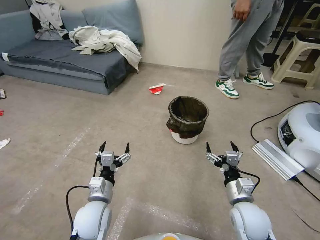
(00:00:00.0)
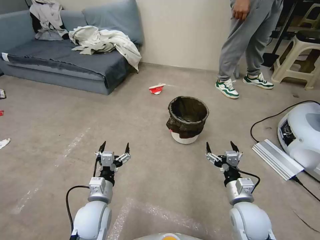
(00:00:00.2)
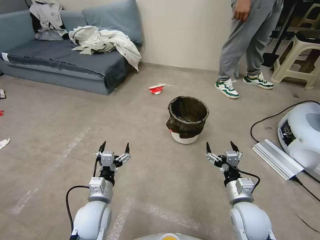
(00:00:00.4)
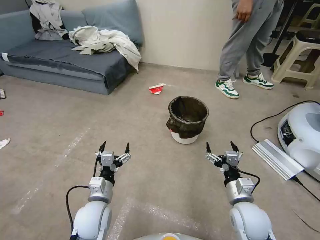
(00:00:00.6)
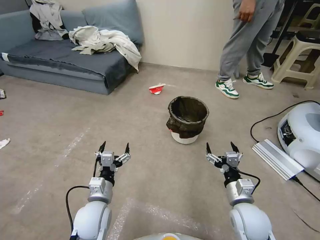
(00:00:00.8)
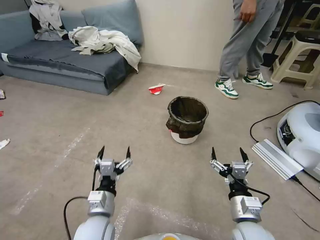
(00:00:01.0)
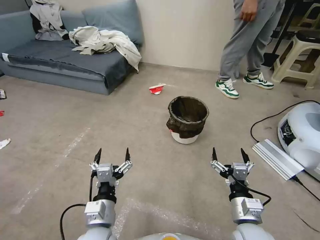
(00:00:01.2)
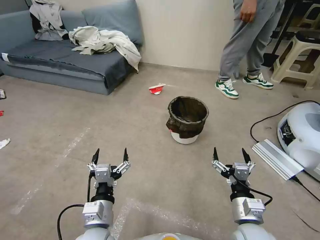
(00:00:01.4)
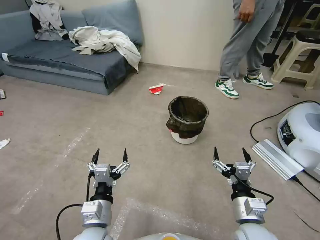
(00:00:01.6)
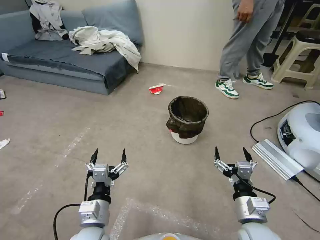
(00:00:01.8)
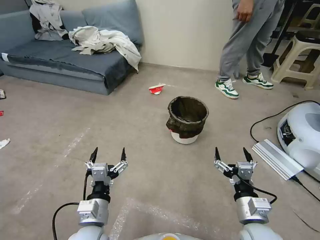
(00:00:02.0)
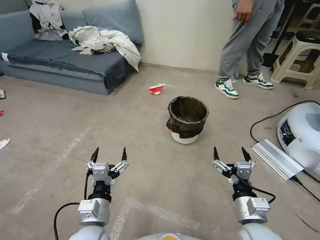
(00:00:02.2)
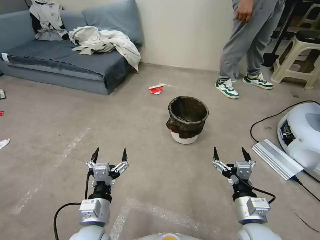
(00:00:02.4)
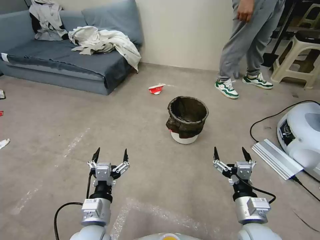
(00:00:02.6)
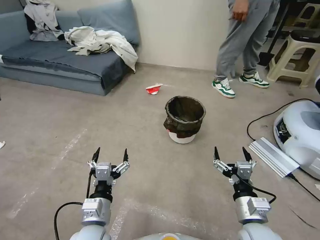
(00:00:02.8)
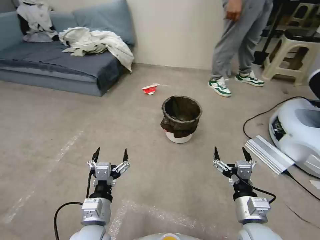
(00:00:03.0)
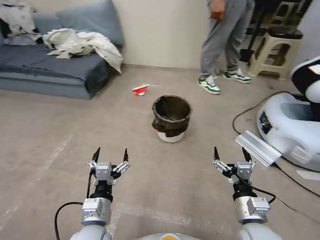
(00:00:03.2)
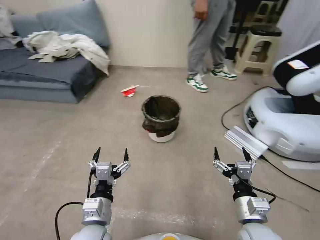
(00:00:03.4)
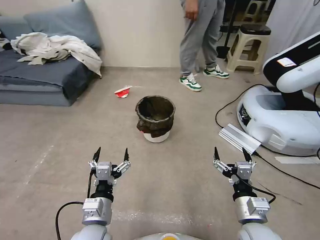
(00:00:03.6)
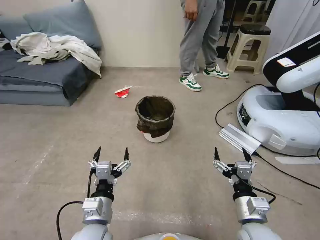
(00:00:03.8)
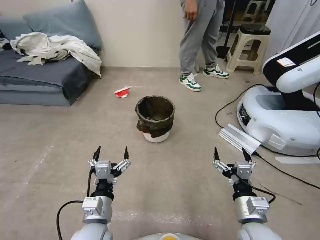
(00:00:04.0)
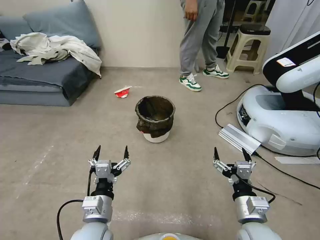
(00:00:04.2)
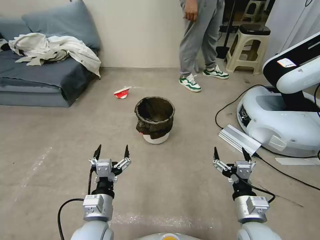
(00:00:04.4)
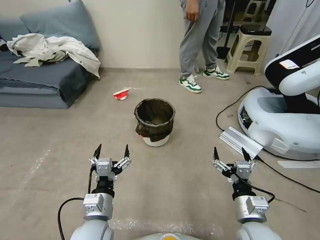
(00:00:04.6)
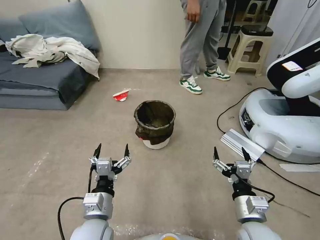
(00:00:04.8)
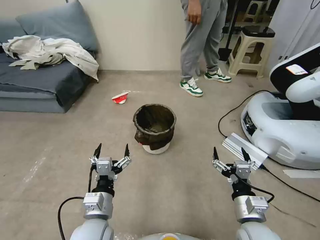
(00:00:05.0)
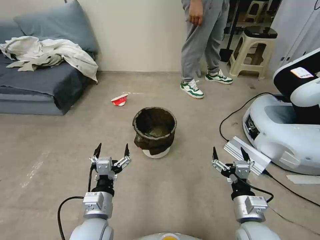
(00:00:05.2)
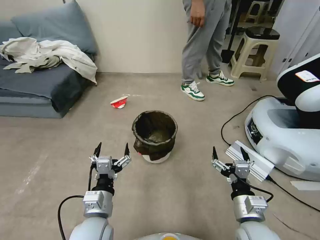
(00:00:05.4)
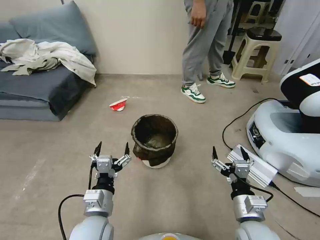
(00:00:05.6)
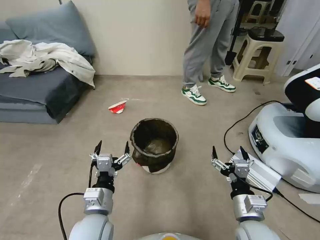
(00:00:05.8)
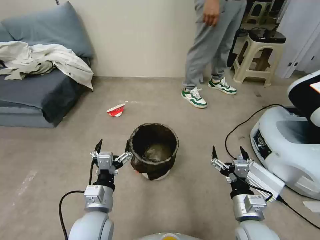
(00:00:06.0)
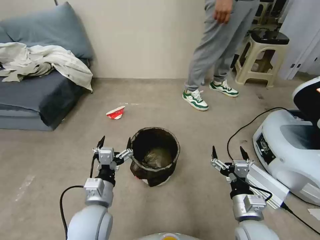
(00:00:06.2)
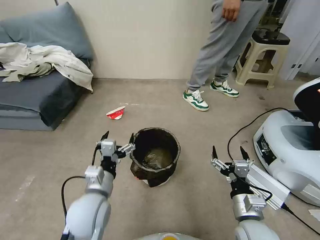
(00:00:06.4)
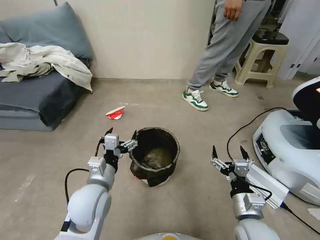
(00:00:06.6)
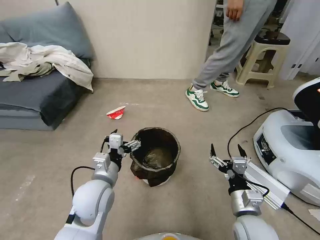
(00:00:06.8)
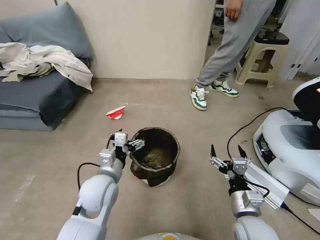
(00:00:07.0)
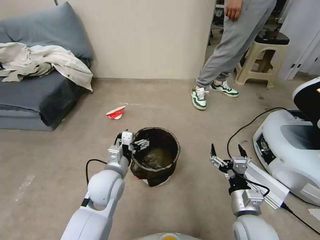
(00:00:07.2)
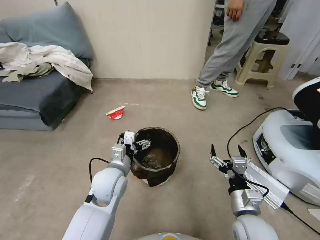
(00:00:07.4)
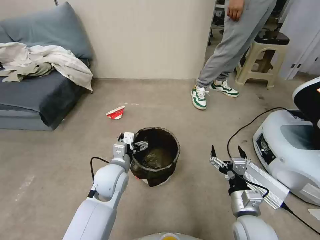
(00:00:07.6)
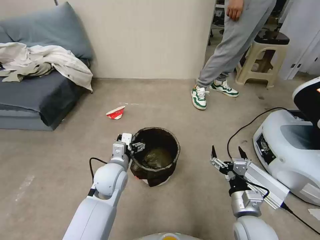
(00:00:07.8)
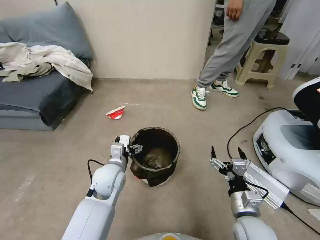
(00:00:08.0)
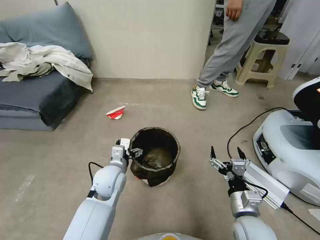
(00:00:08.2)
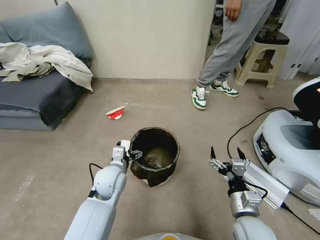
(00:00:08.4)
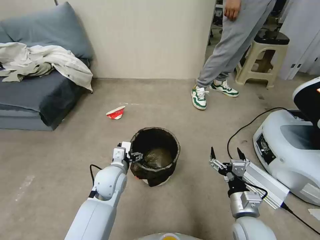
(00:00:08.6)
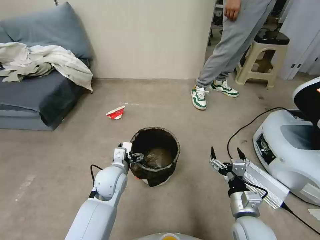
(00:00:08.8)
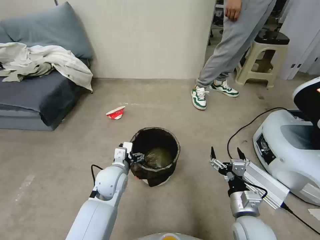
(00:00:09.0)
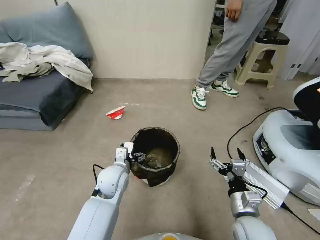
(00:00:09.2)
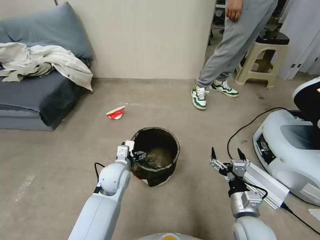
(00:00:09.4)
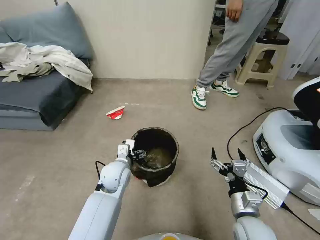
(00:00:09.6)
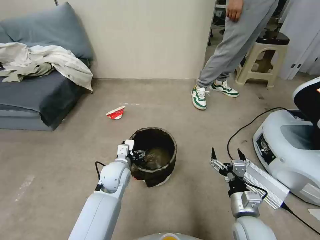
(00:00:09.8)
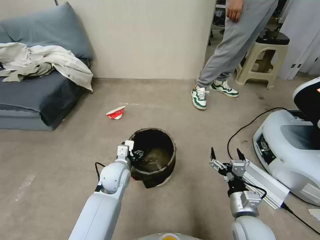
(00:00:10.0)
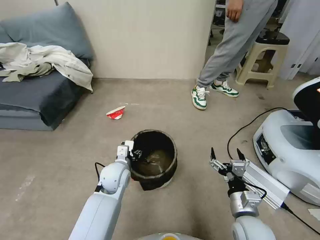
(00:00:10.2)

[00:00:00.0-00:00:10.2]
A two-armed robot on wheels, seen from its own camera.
Task of the whole recording: Pick up the trash can from the floor.
00:00:05.8 to 00:00:07.2: The left gripper goes about 10 cm forward.
00:00:07.2 to 00:00:08.8: The left gripper changes place by some 5 cm.
00:00:08.8 to 00:00:10.2: The left gripper closes its fingers.

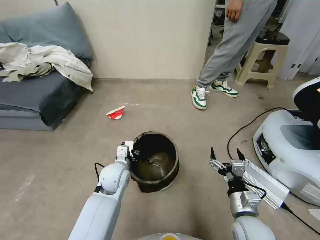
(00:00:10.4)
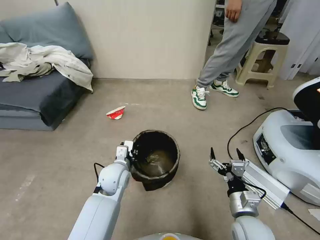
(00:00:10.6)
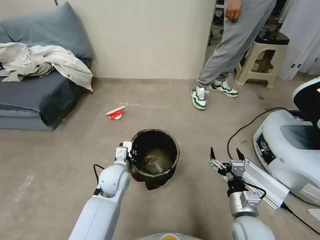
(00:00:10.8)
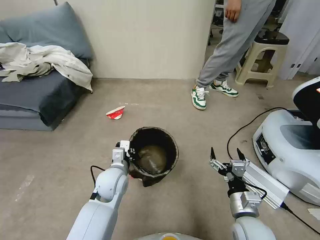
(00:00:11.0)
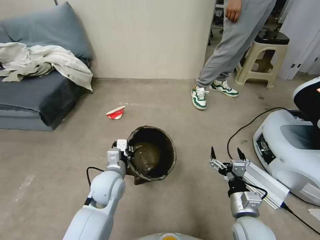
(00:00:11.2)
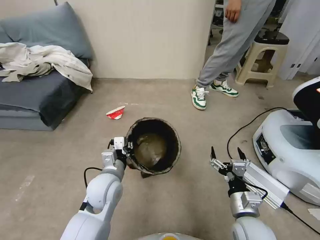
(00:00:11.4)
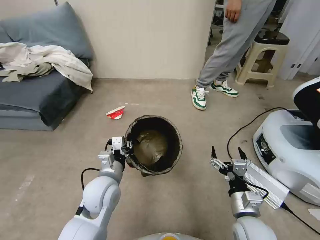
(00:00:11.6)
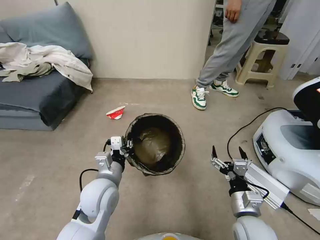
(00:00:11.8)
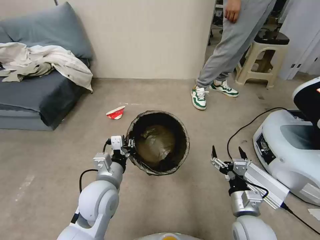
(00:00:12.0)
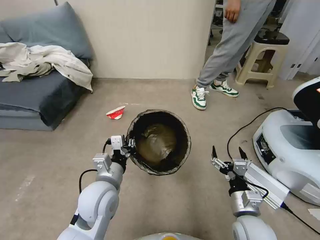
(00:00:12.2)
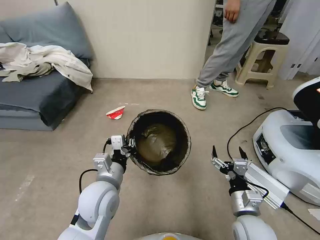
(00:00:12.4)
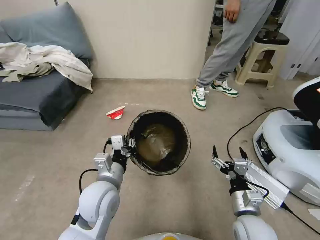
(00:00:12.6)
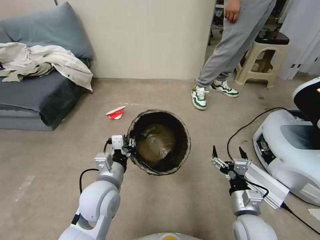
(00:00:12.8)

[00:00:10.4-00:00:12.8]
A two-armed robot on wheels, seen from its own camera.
Task of the whole recording: Pick up the trash can from the floor.
00:00:10.4 to 00:00:11.6: The left gripper moves backward and upward, approximately 10 cm.
00:00:11.6 to 00:00:12.8: The grippers make only small movements.

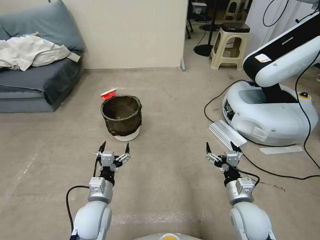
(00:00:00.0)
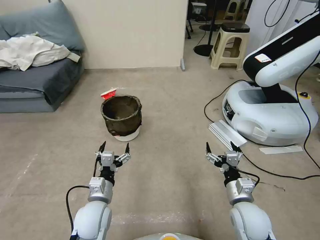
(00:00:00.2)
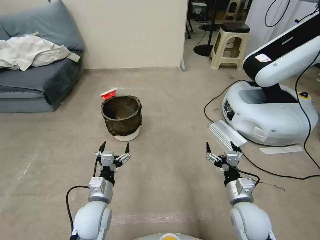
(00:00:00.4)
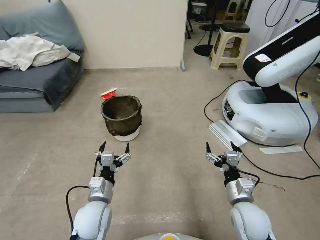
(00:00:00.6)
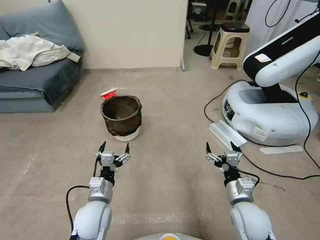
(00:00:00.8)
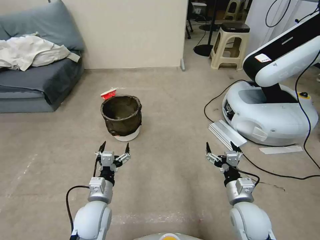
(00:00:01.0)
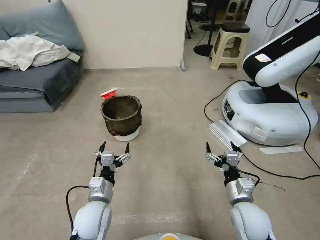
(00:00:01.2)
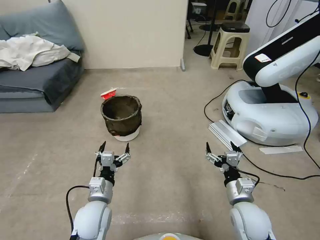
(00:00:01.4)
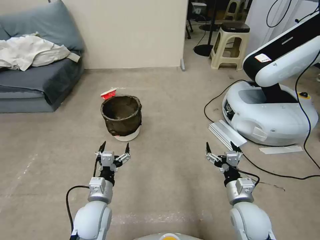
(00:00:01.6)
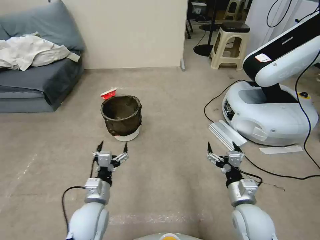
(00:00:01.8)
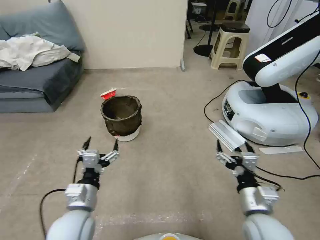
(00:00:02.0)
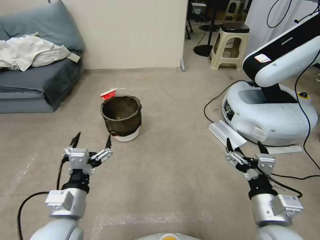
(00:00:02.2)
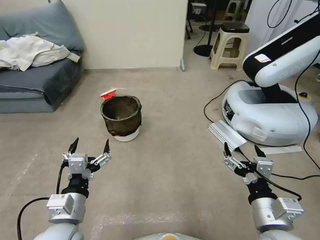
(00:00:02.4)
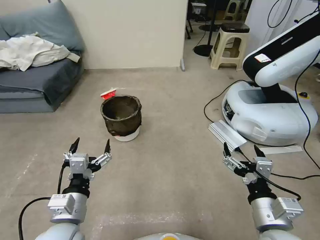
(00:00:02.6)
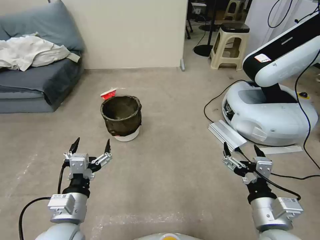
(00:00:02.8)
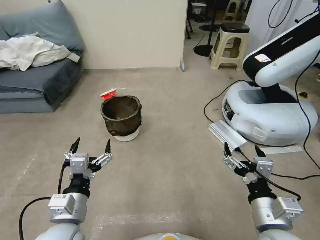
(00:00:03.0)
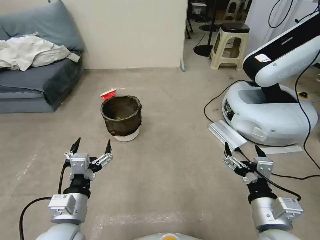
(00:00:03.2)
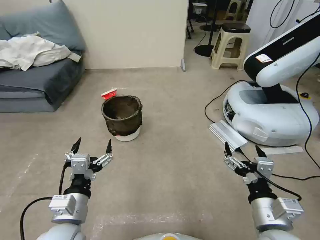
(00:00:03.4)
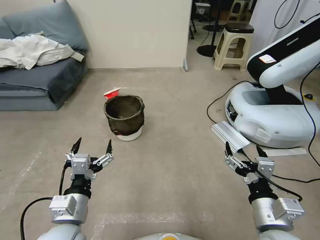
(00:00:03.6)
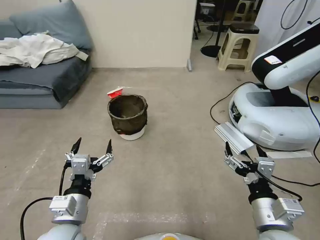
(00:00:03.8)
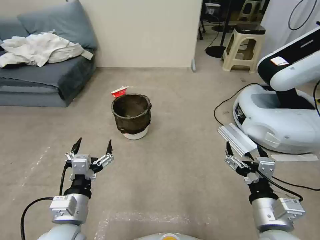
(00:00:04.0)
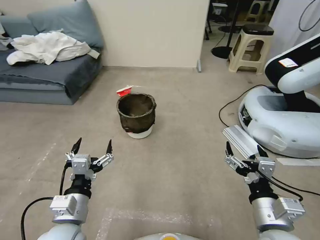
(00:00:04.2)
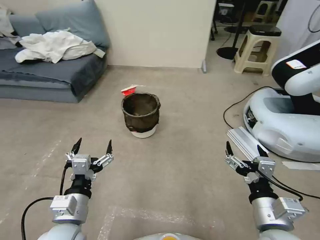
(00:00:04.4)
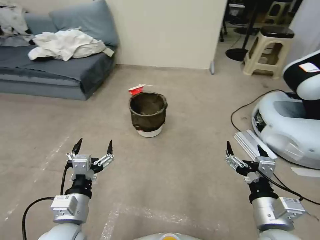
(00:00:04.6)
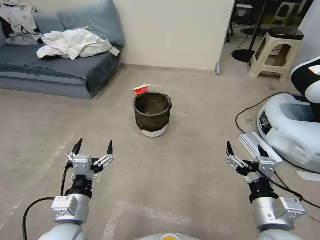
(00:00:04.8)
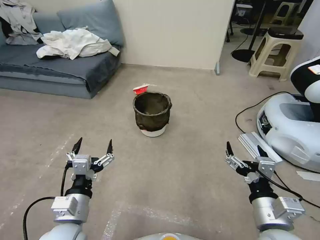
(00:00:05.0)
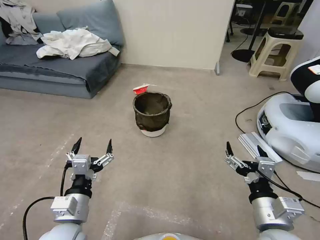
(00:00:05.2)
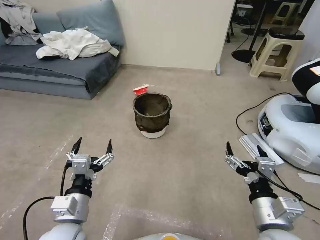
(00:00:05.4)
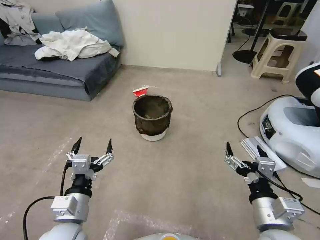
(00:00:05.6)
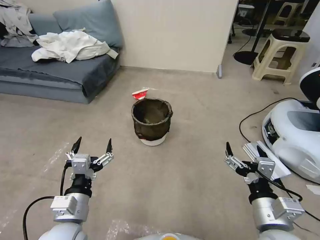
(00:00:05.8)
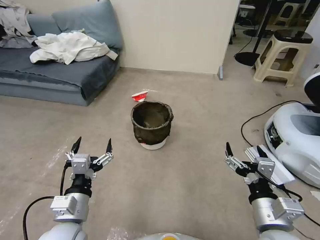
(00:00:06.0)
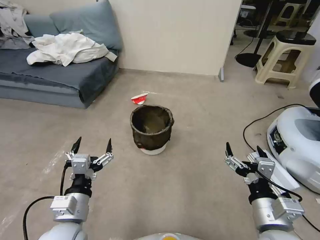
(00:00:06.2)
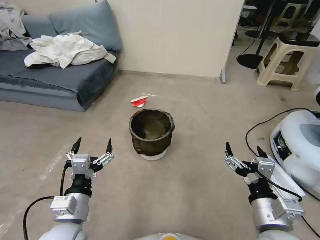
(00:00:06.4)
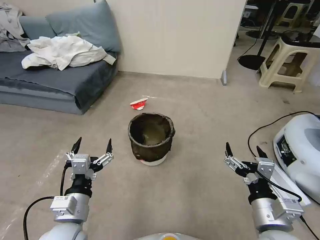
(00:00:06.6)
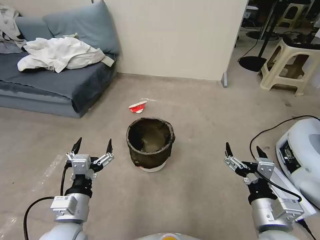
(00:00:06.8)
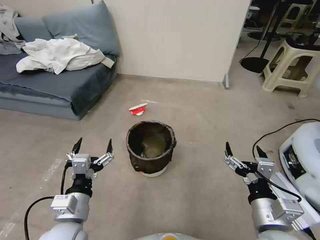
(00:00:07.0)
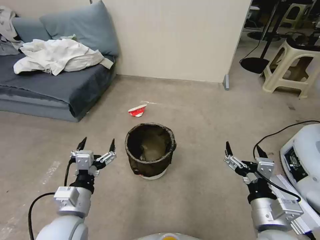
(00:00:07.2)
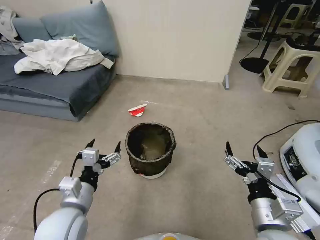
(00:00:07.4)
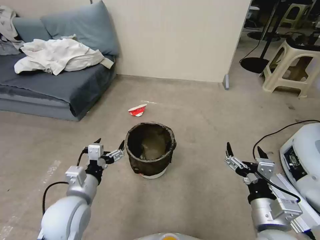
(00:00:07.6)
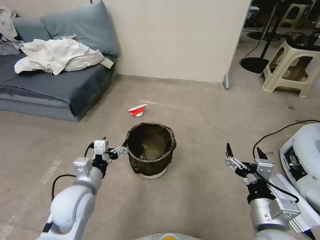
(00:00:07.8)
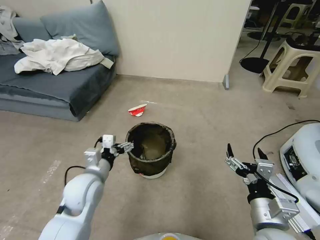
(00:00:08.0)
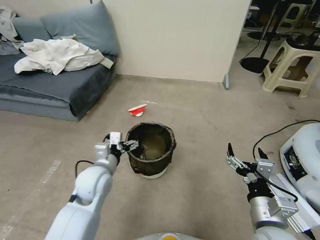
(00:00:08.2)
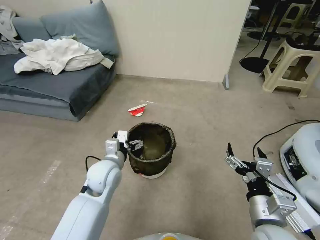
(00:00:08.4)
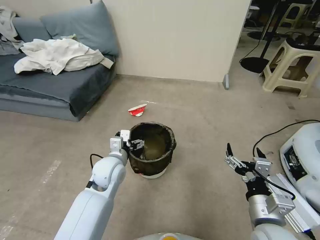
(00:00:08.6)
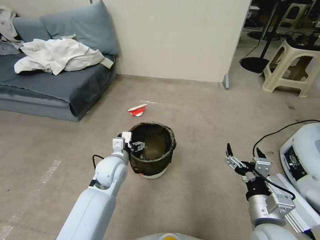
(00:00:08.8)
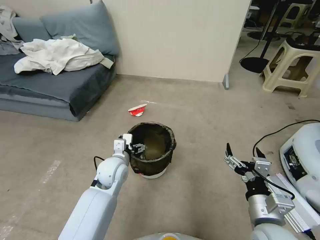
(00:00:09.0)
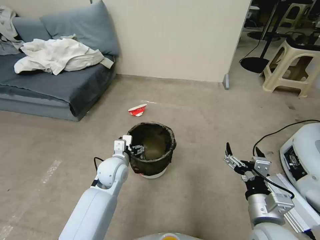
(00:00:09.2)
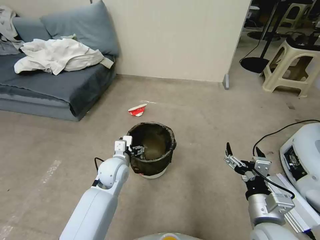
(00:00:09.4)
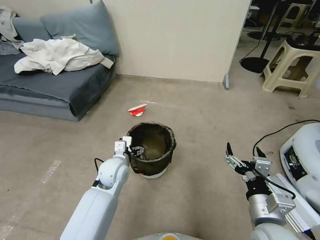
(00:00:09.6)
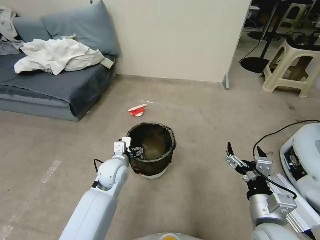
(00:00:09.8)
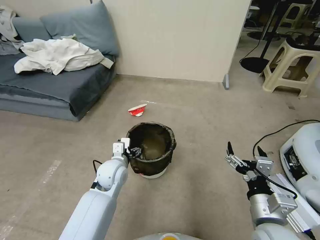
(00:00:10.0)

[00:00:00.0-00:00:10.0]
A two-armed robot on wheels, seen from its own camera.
Task of the whole recording: Pick up the trash can from the floor.
00:00:01.4 to 00:00:02.8: The two grippers go approximately 15 cm upward and backward.
00:00:07.2 to 00:00:08.6: The left gripper moves forward, some 15 cm.
00:00:08.6 to 00:00:10.0: There are only small adjustments of the grippers.
